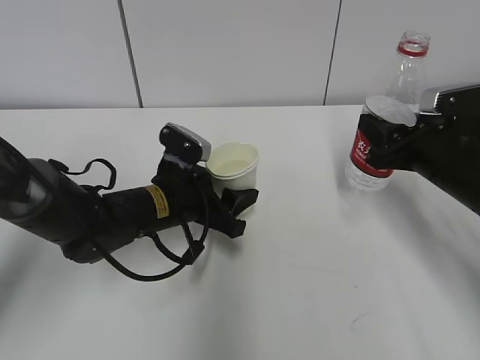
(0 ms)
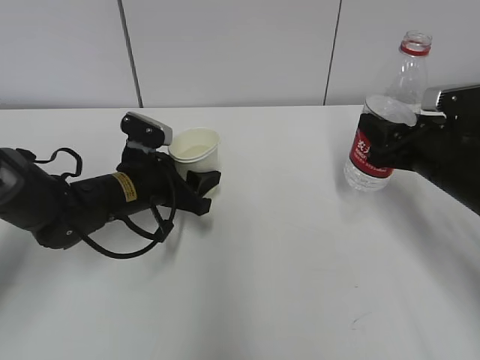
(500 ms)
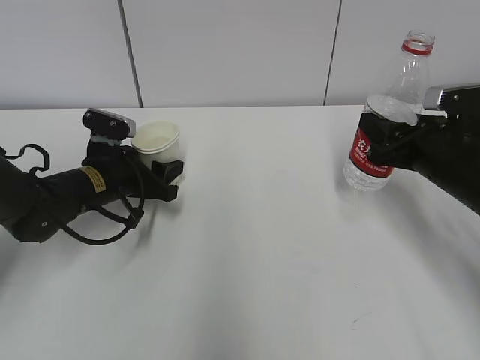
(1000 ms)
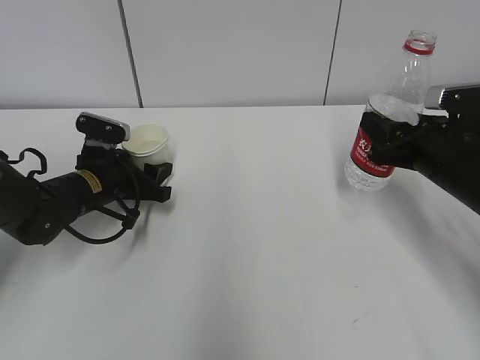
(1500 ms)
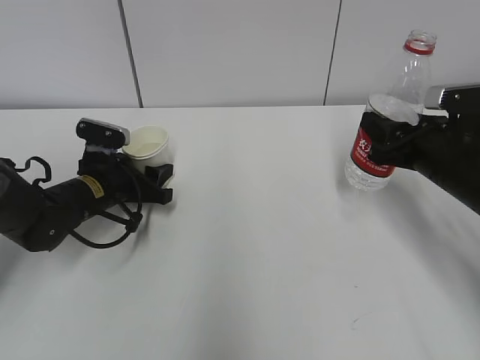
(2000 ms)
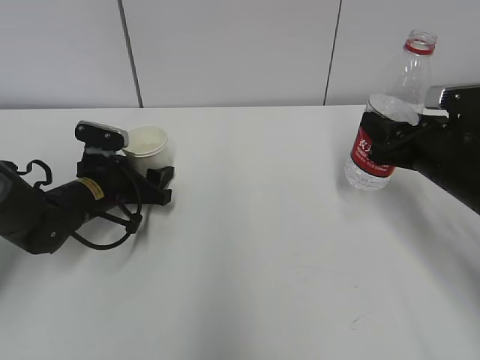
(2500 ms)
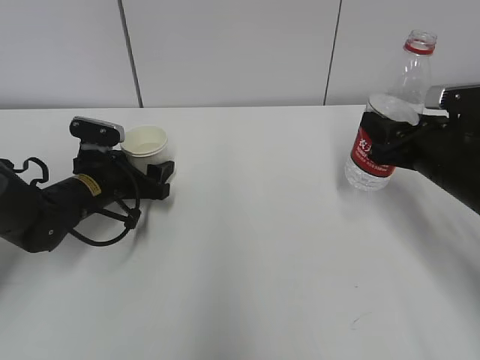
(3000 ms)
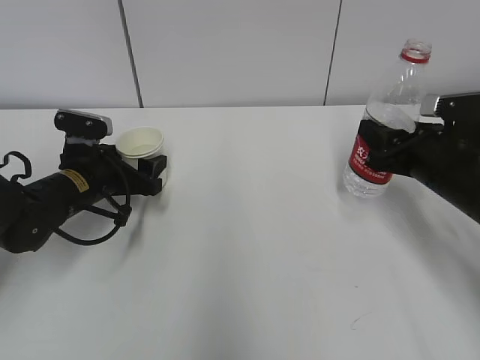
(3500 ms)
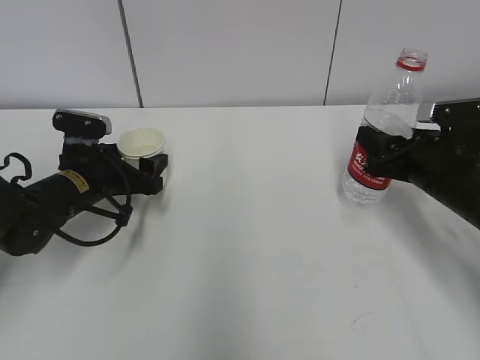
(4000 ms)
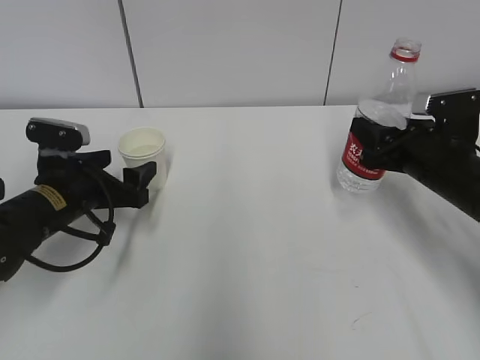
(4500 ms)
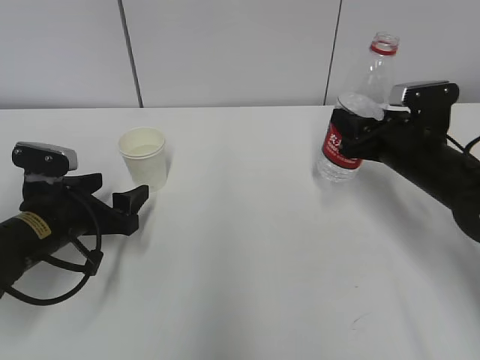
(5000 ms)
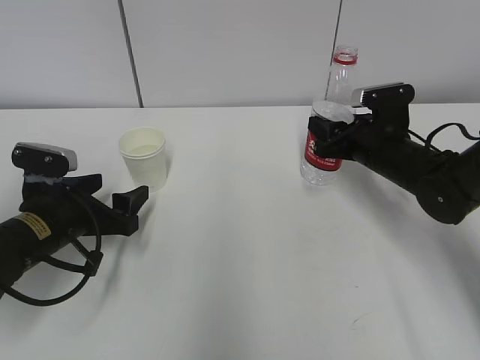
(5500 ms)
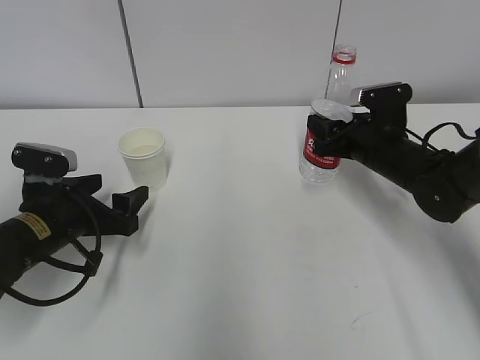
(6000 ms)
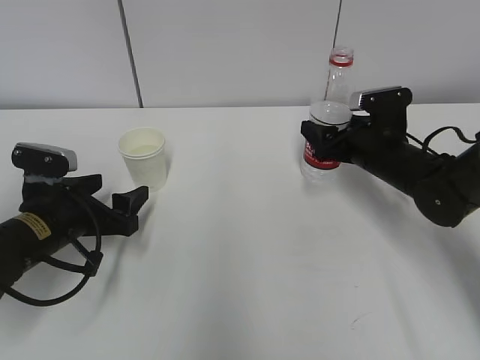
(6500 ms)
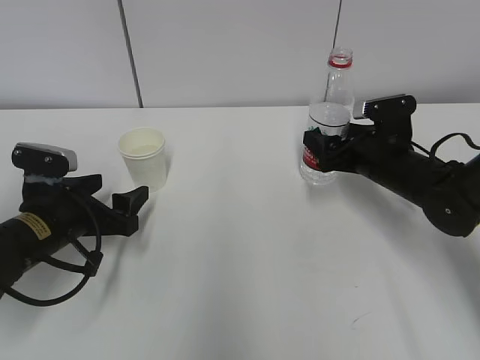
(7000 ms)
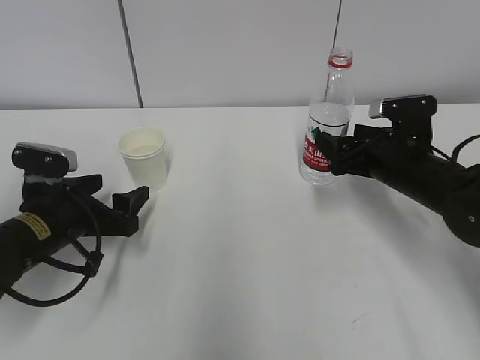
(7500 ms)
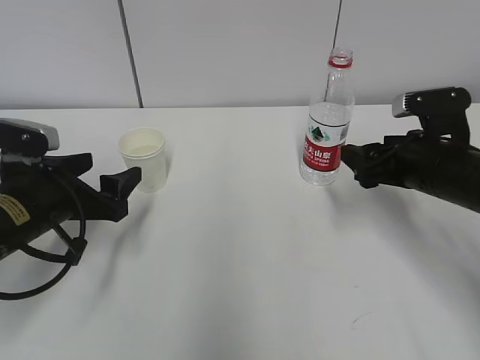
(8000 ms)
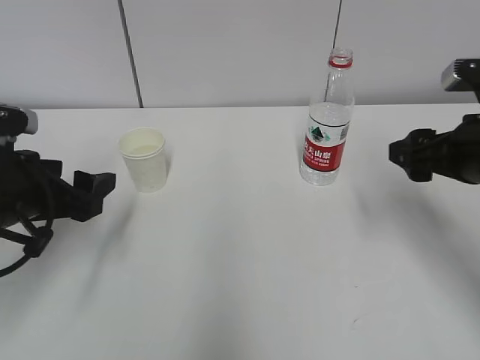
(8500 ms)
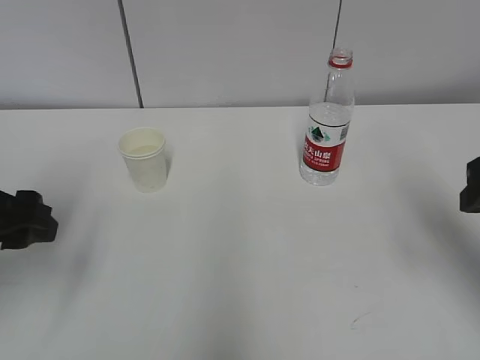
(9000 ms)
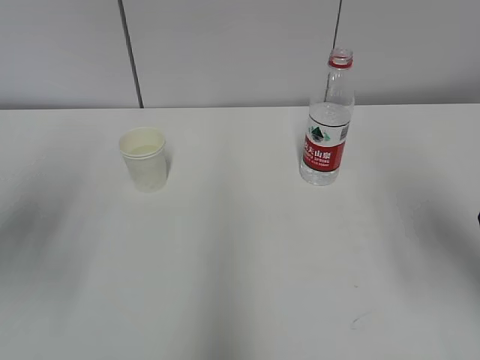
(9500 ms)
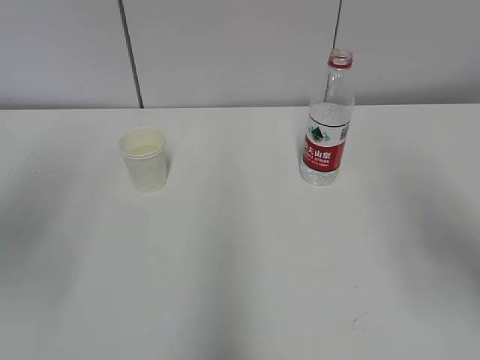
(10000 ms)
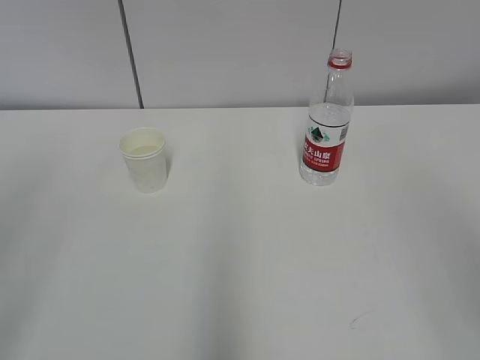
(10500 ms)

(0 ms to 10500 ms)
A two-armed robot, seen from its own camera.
0 ms - 2000 ms: The left gripper is displaced to the left and forward by roughly 10 cm.
2000 ms - 4000 ms: The left gripper opens.
4000 ms - 6500 ms: The right gripper heads forward, covering approximately 10 cm, and opens. The left gripper goes some 5 cm backward.
6500 ms - 8500 ms: The left gripper shifts about 10 cm upward. Meanwhile the right gripper shifts some 15 cm backward and upward.
8500 ms - 10500 ms: The right gripper goes some 25 cm backward and upward, while the left gripper shifts roughly 25 cm upward and backward.

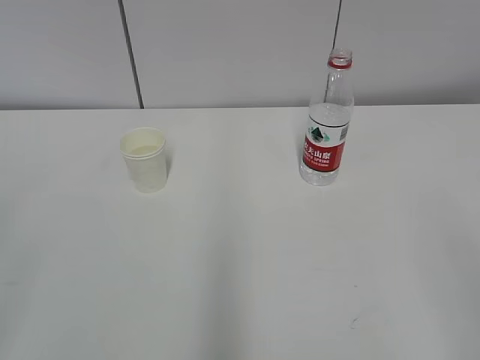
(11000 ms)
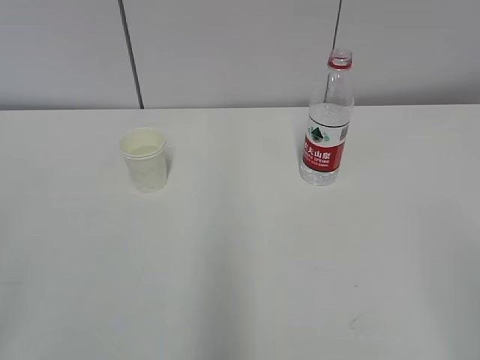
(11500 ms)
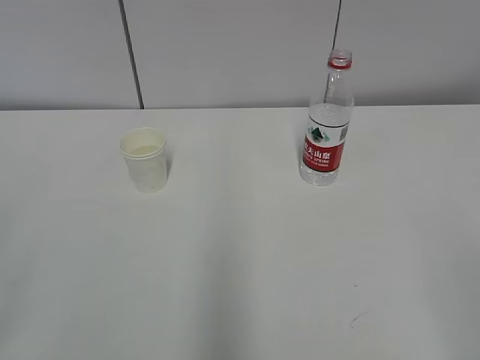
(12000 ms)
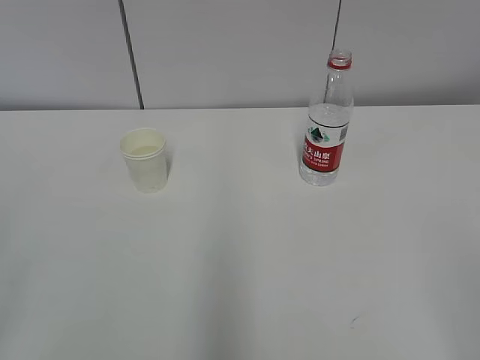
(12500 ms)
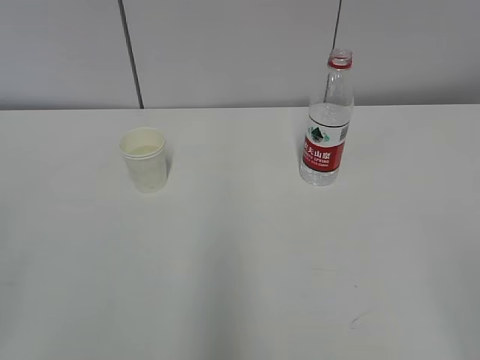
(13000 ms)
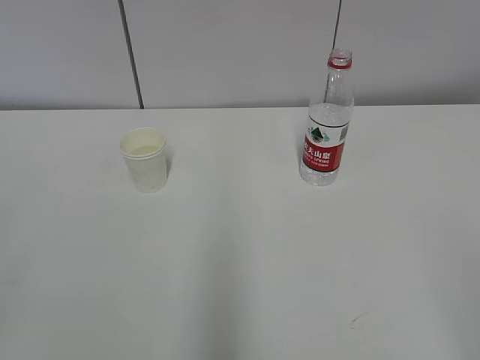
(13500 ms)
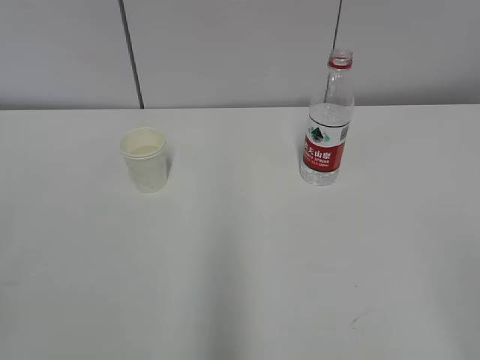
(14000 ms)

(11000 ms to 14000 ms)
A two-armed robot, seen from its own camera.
12500 ms - 14000 ms: Both grippers stay about where they are.
